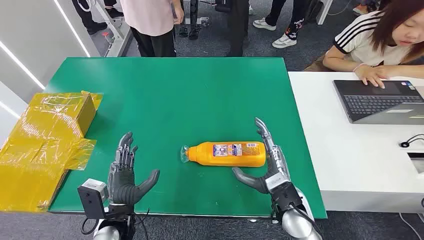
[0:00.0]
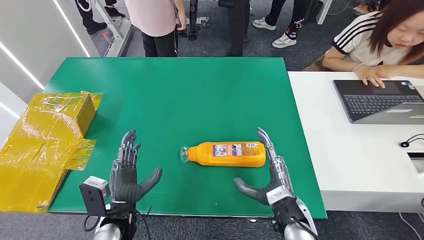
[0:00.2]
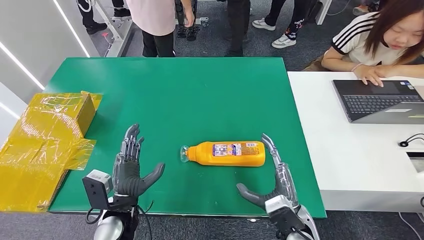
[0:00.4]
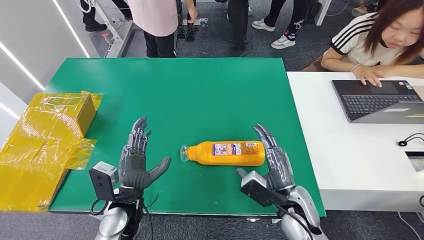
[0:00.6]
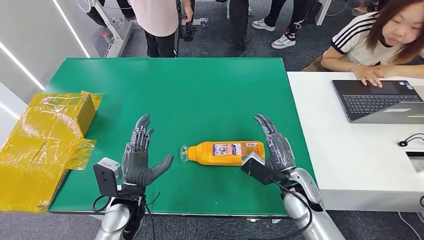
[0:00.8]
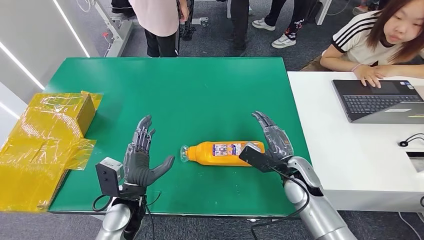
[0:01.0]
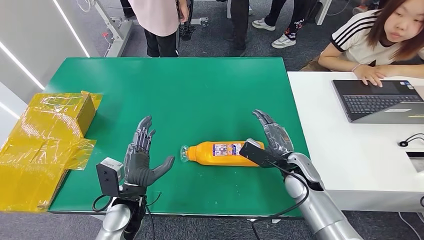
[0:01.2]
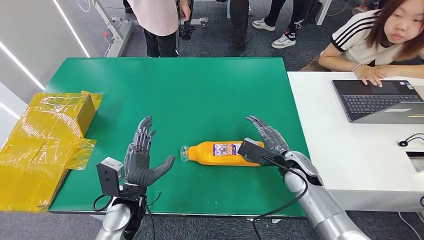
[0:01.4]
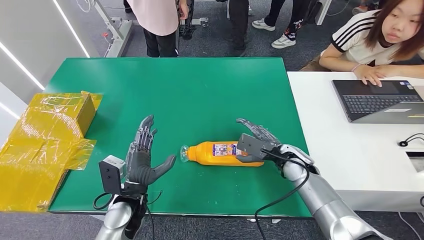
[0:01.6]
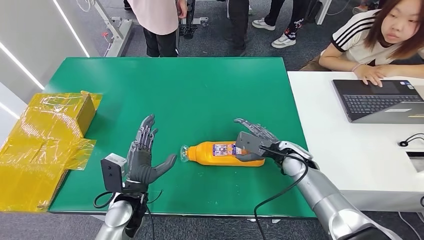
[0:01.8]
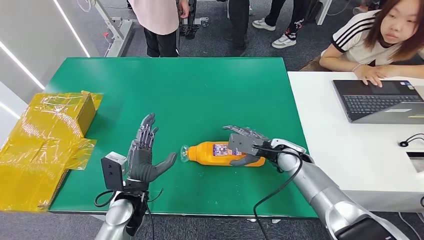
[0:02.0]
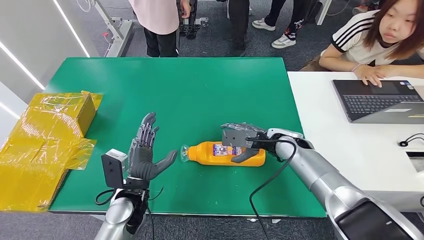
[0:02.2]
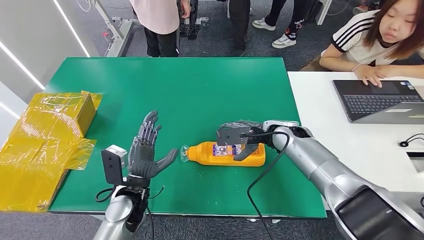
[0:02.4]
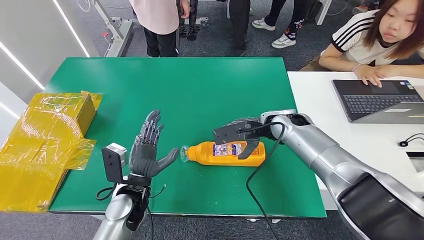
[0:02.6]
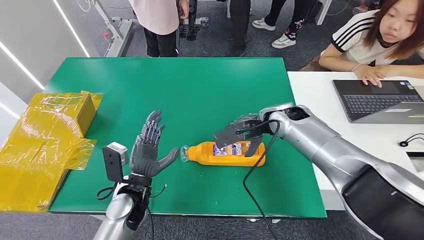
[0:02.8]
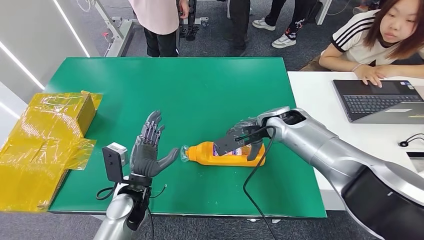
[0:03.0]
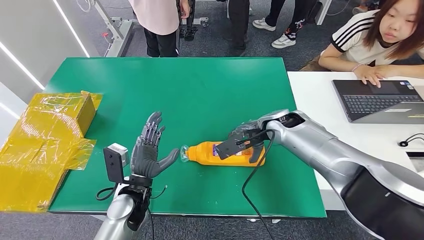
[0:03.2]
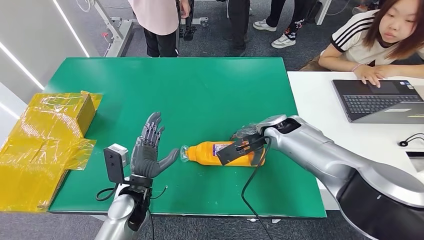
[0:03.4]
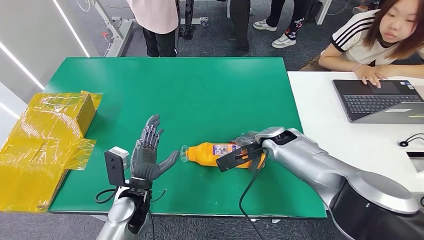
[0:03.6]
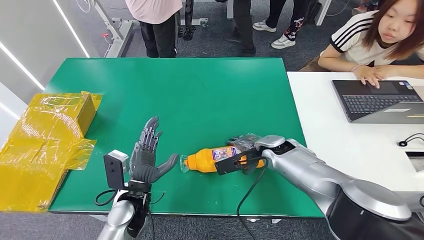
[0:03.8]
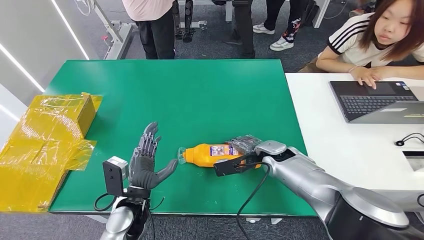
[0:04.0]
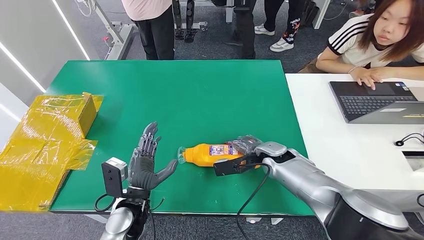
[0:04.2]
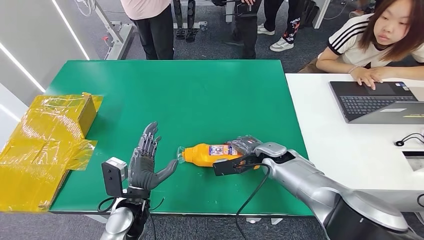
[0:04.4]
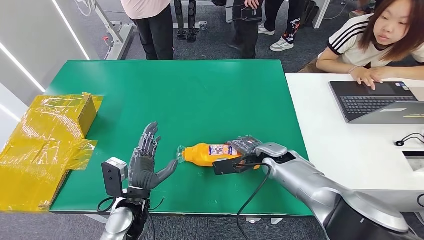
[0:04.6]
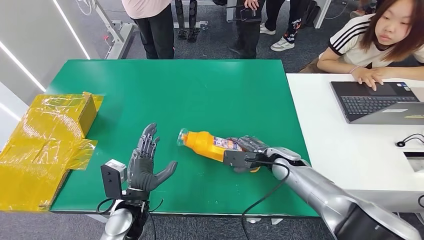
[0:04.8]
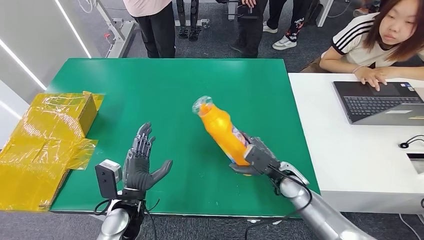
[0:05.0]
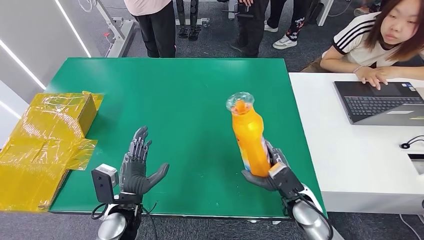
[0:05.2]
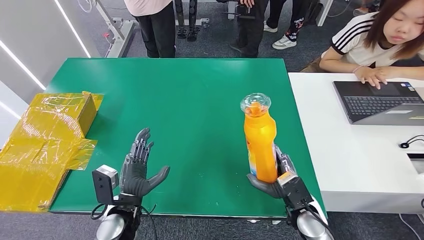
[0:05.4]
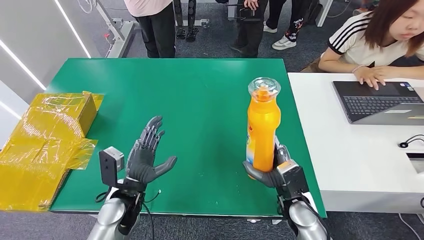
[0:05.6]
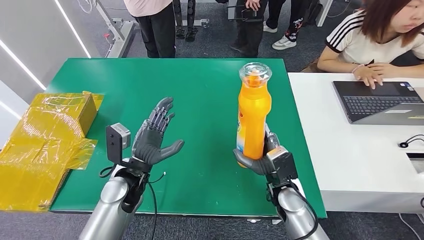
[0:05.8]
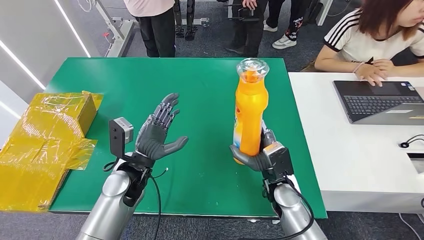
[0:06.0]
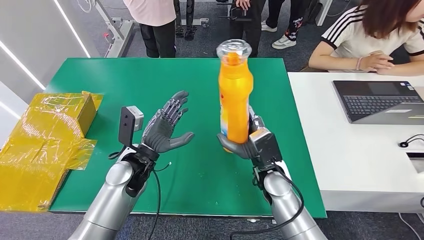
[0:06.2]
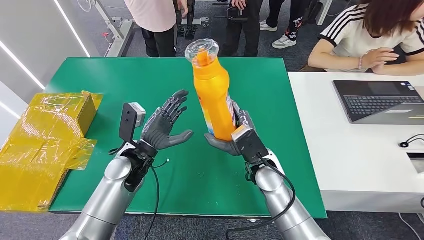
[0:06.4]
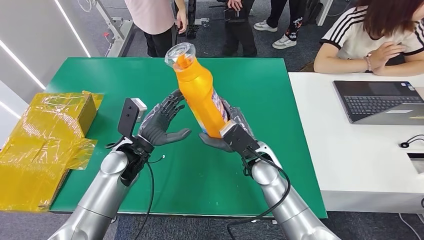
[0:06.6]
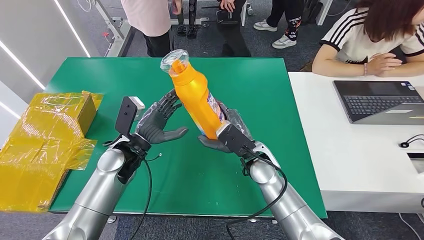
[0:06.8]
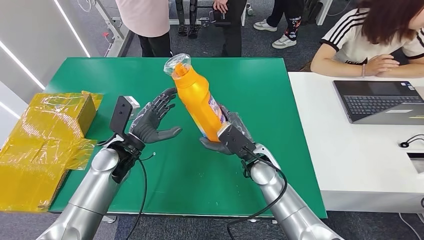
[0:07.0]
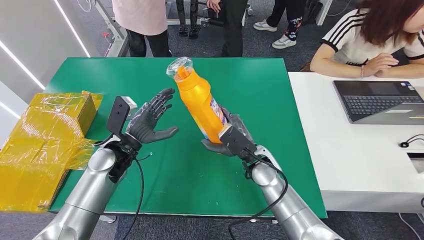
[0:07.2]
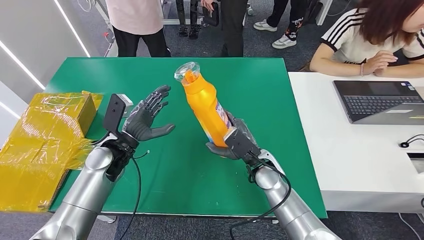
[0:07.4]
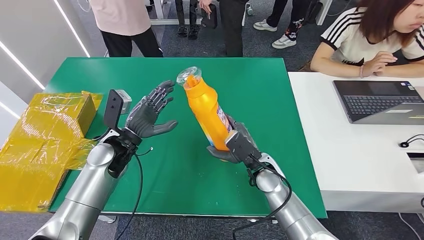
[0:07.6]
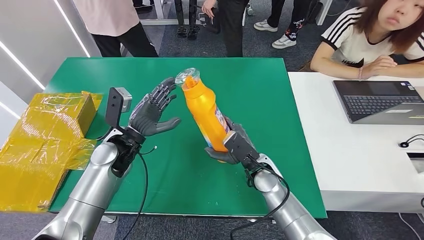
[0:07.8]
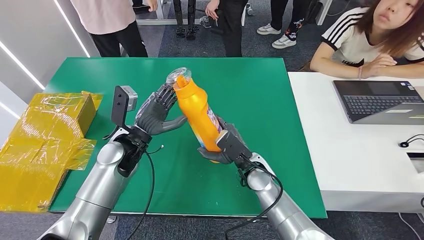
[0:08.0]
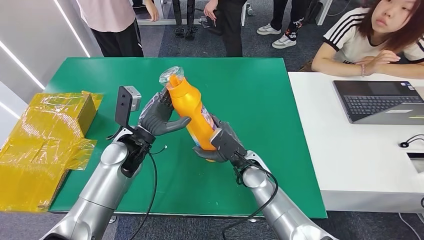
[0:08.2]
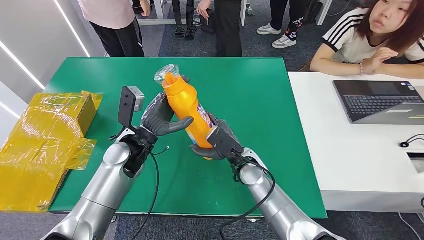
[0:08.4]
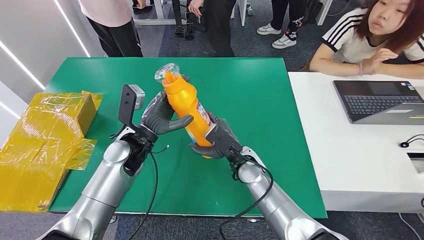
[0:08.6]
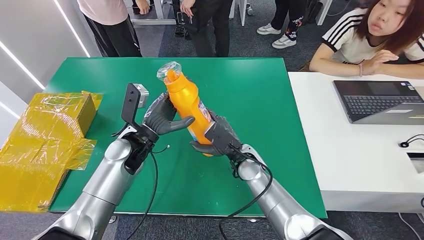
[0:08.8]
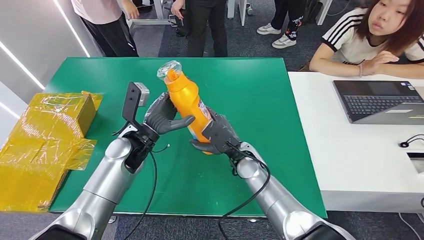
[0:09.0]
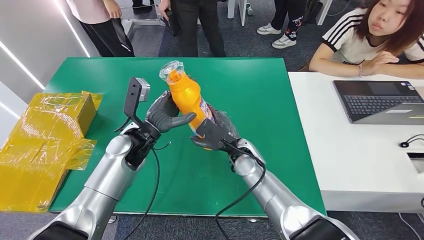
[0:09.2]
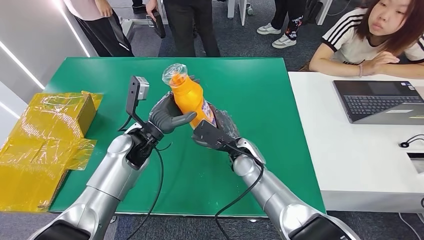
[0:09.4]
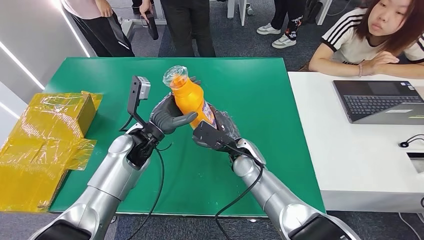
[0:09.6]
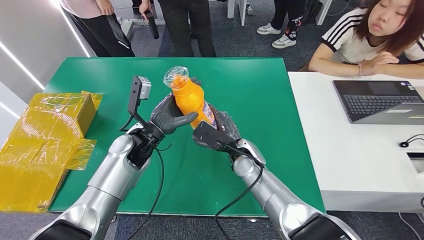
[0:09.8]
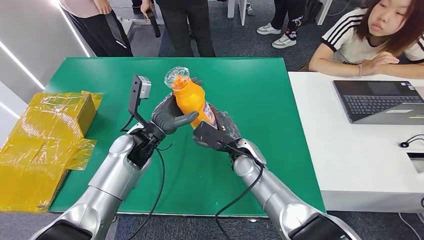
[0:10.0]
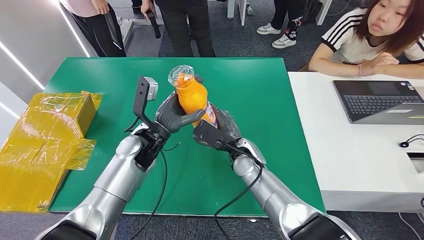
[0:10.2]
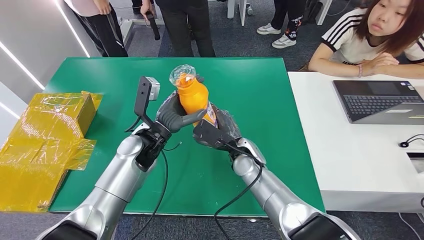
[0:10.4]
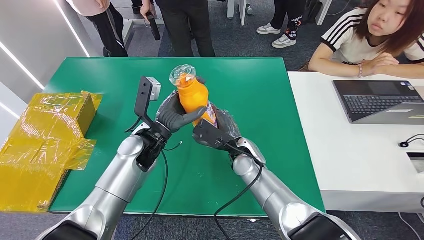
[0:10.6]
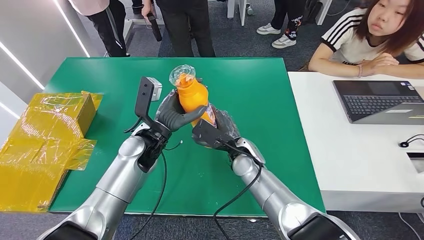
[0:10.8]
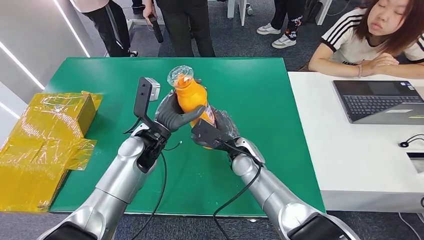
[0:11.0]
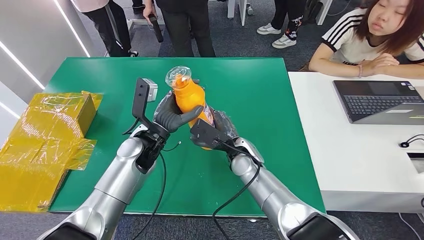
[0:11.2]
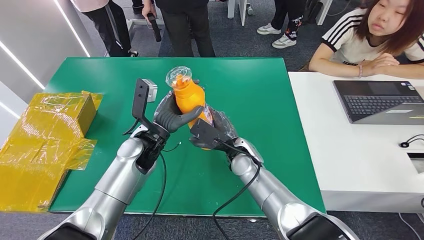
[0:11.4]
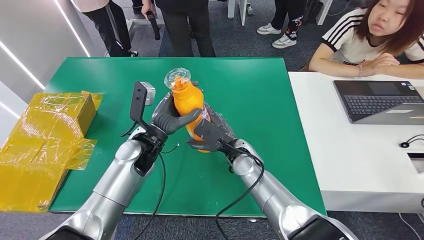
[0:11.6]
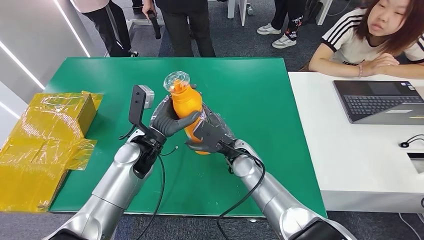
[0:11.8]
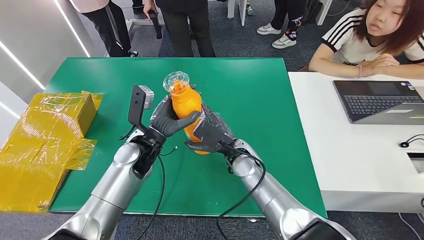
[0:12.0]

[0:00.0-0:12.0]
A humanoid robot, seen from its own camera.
Step, 0:00.0 to 0:05.4: Pick up the bottle from the table.
0:01.6 to 0:03.0: The right hand heads upward and forward, covering about 10 cm.
0:09.0 to 0:12.0: The hands make only small movements.

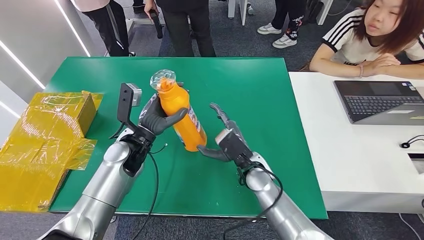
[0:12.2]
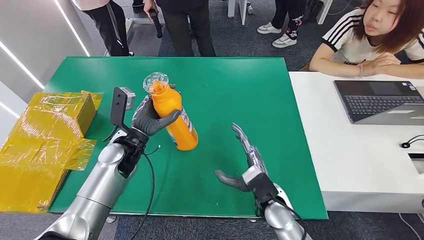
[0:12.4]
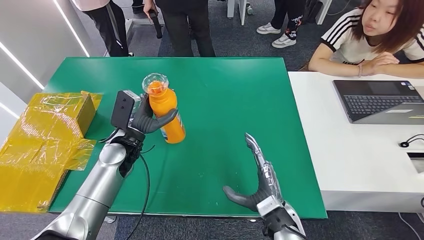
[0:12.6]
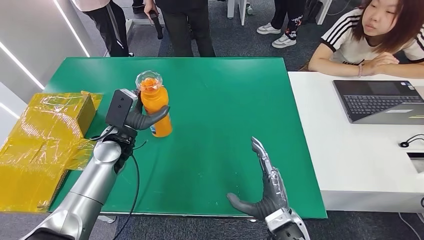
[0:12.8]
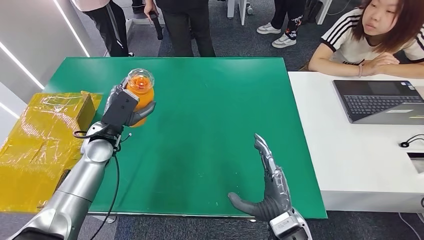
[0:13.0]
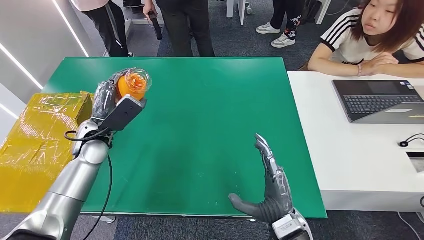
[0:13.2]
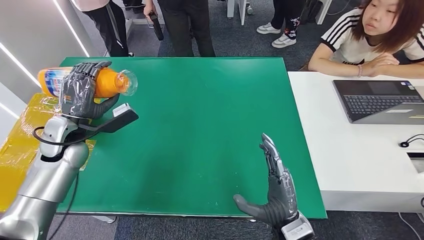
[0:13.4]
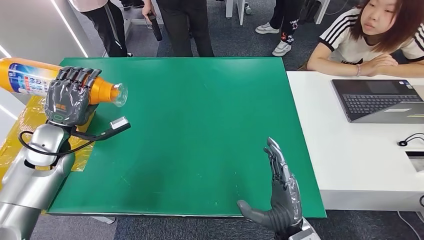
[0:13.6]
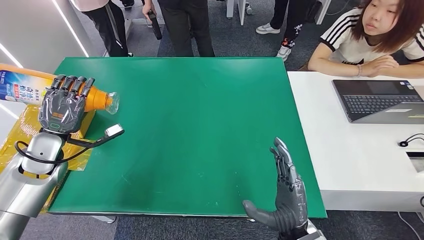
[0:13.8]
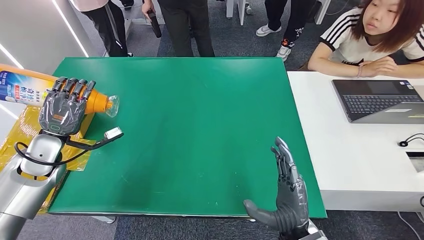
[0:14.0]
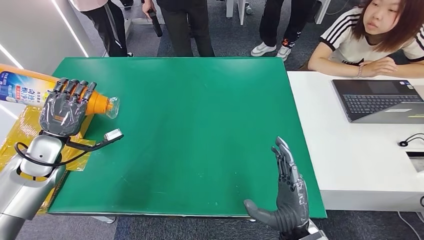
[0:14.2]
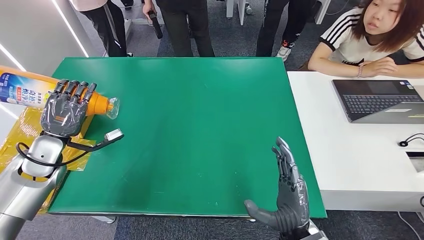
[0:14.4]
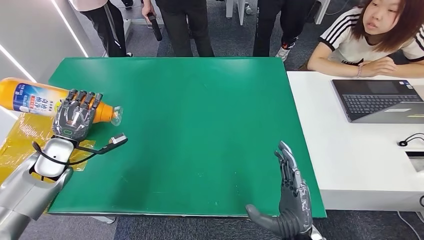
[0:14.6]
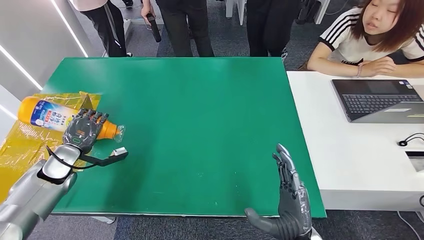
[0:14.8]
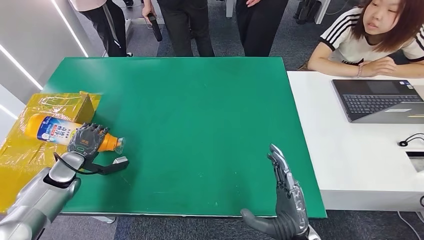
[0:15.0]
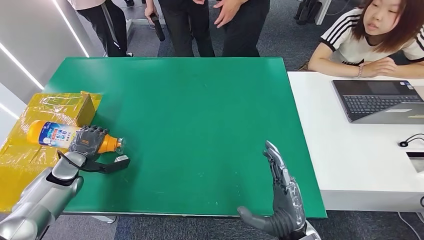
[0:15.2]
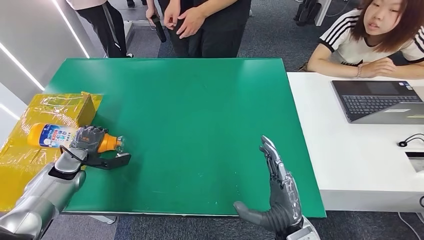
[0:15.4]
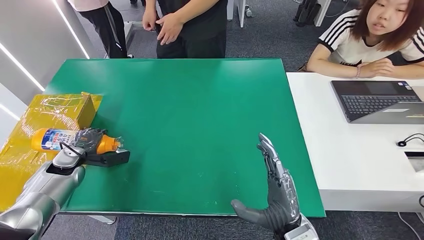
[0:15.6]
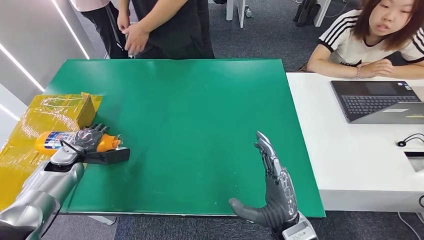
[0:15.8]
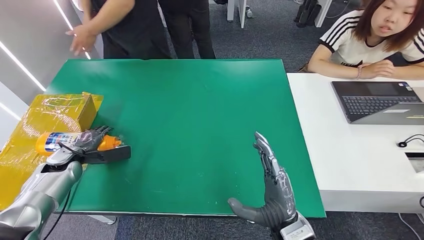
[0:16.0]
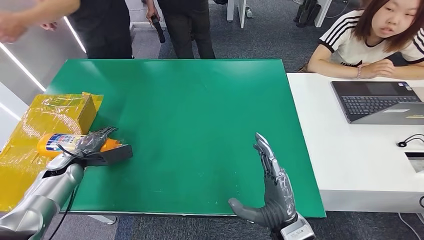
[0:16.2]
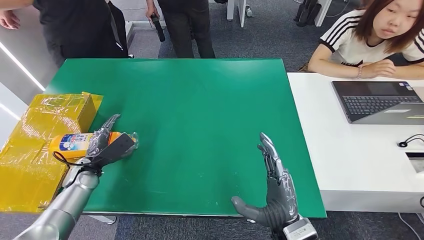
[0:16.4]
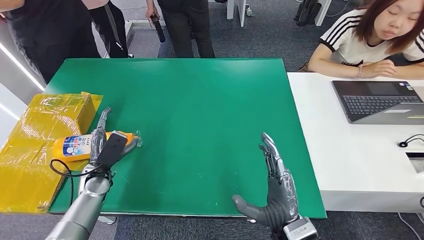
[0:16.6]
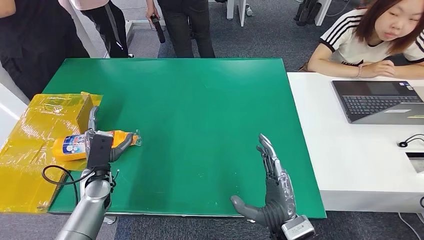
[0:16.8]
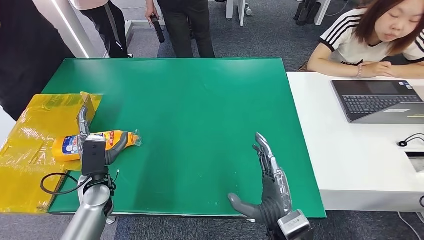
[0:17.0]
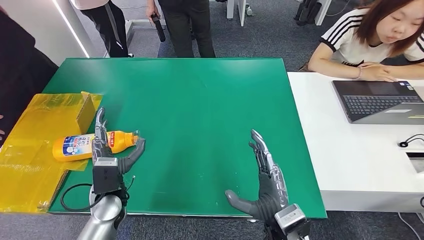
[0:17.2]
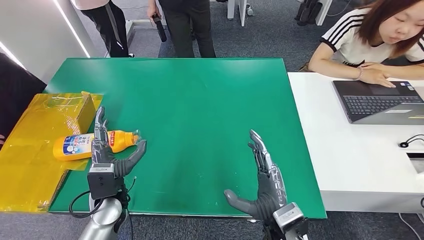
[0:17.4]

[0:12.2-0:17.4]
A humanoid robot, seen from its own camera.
Step, 0:12.2 to 0:17.4: Turn the bottle to the front side.
